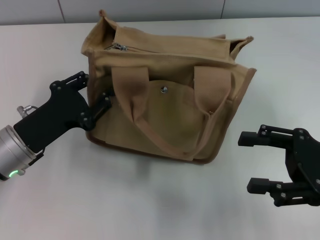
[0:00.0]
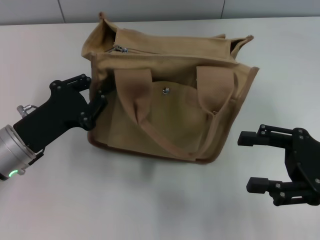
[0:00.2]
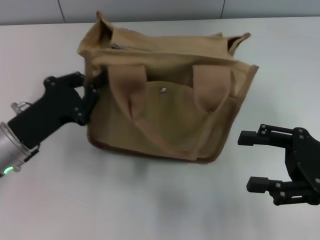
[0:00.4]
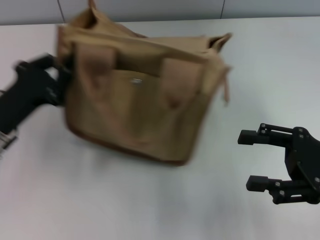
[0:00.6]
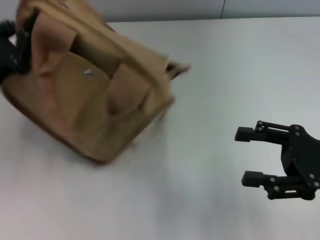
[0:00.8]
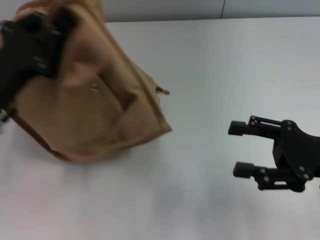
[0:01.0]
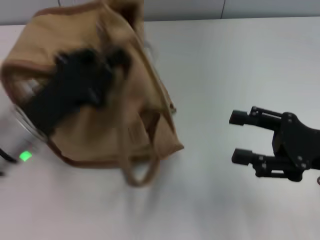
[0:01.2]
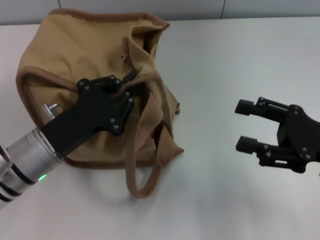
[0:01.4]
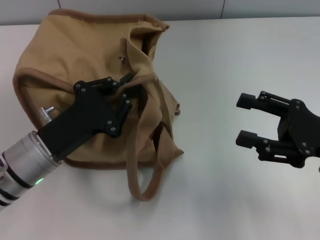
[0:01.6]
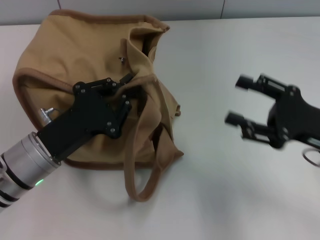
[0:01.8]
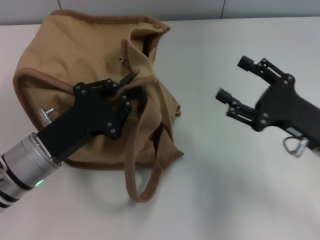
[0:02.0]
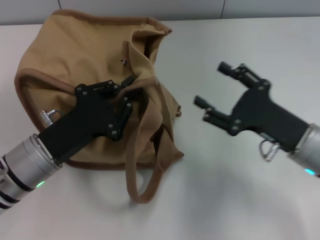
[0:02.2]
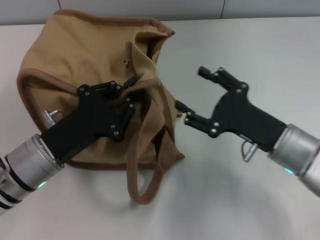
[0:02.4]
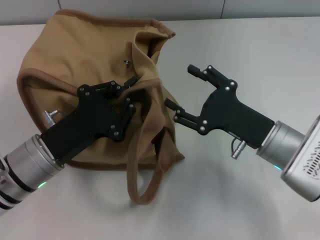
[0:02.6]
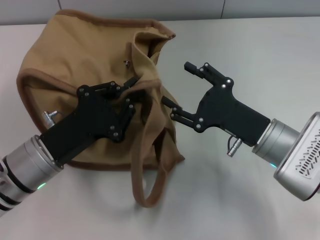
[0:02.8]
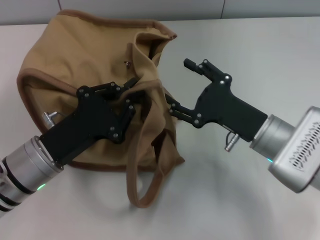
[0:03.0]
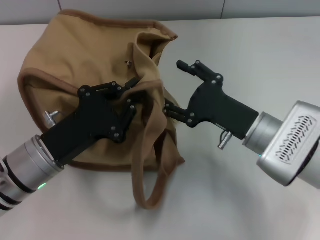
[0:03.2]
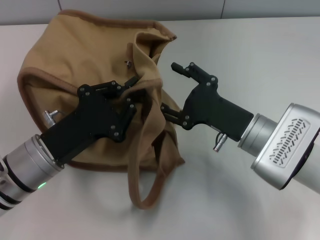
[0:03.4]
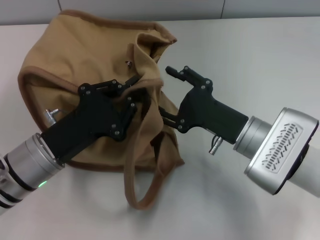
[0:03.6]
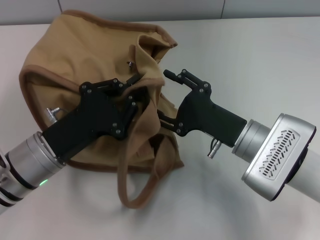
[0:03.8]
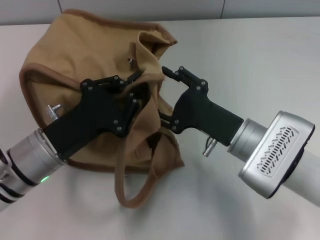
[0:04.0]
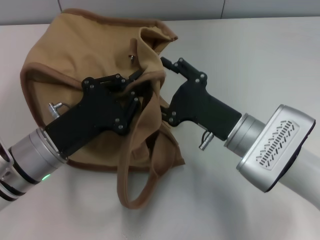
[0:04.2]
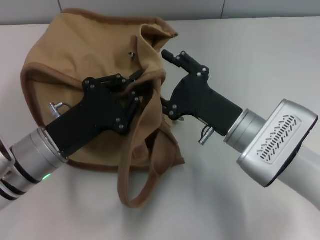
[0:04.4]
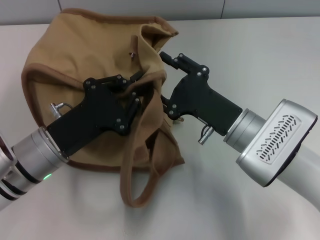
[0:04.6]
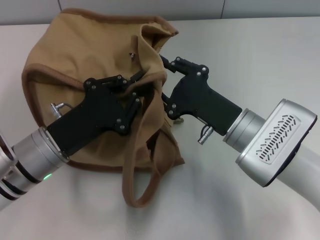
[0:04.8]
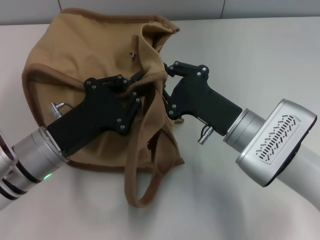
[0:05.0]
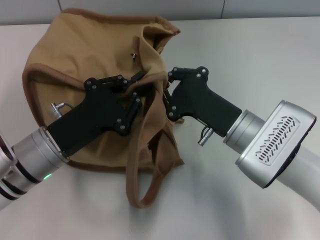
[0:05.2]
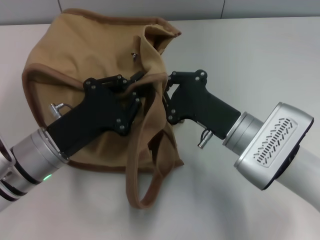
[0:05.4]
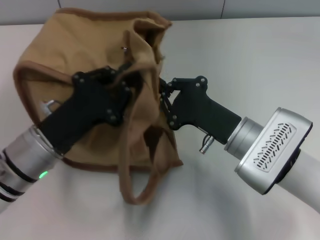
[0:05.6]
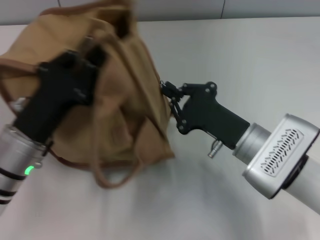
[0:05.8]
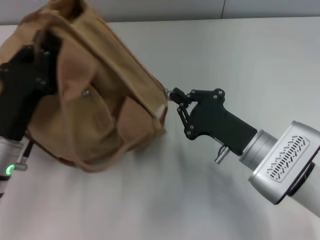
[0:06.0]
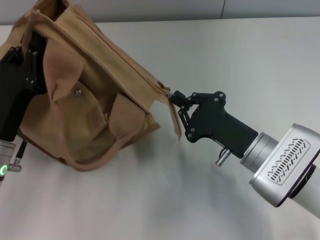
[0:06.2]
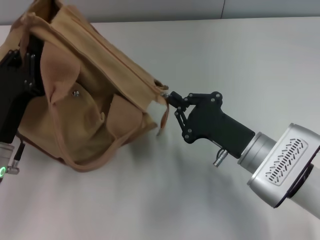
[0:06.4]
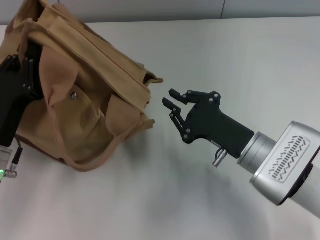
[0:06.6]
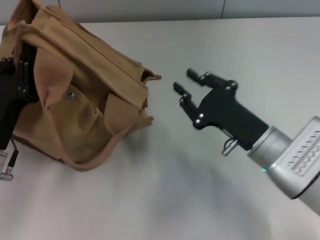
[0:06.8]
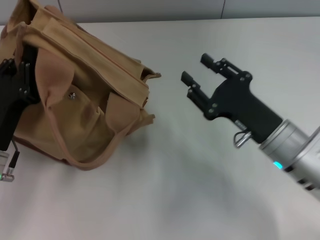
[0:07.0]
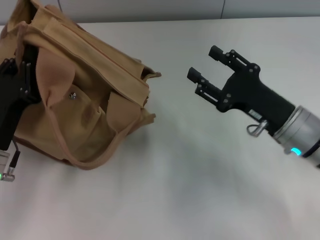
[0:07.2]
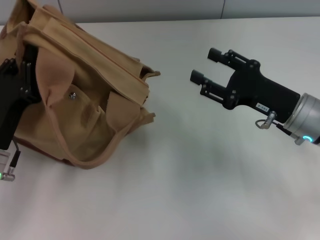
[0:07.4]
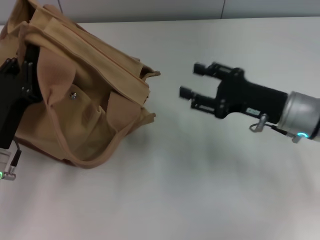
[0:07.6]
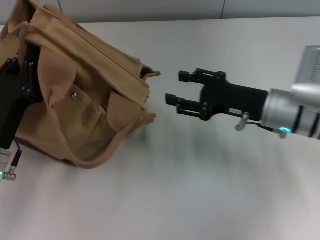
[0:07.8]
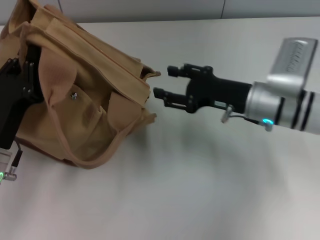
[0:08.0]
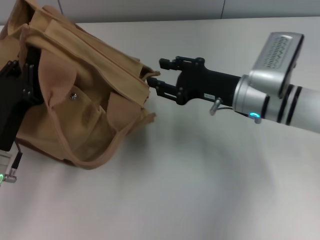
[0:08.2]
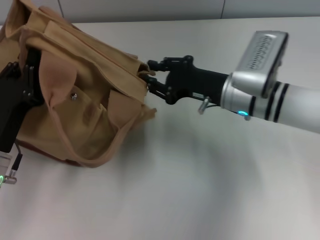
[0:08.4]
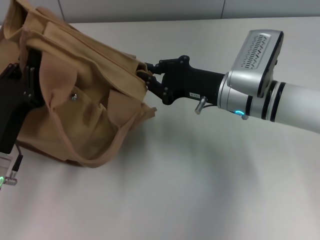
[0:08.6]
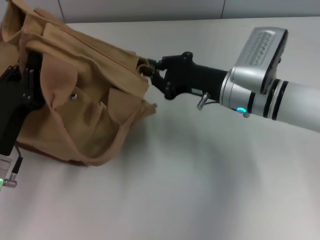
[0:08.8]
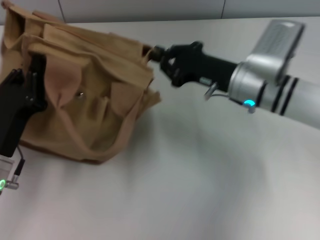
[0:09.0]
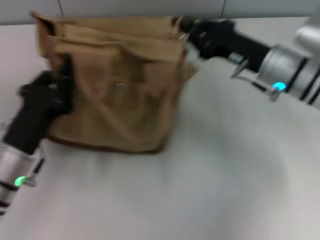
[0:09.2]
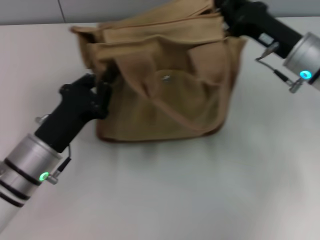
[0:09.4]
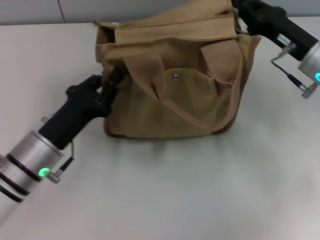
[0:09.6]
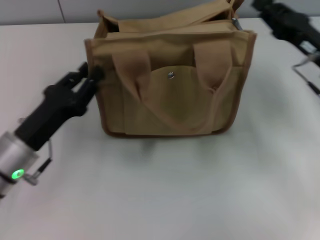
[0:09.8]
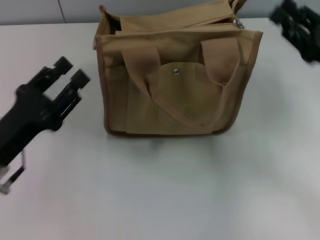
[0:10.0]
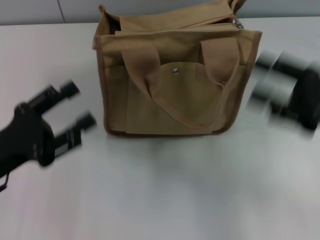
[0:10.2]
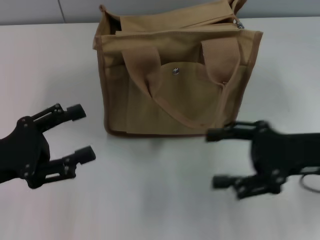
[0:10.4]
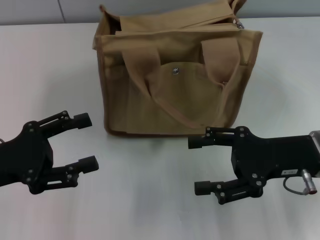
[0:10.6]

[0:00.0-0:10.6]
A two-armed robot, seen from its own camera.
Step, 0:00.0 to 0:06.4: Pull open the zipper with your right hand.
Step, 0:06.8 to 0:09.8: Grab the bag with your left hand.
0:00.0 to 0:01.6: The left gripper closes its fingers.
0:01.6 to 0:03.0: The right gripper travels to the left and downward by about 10 cm.
0:04.6 to 0:06.0: The right gripper closes.
0:06.0 to 0:07.6: The right gripper goes some 10 cm to the right and forward, and opens.
0:07.6 to 0:09.0: The right gripper goes roughly 5 cm to the left, and closes up.
0:09.0 to 0:10.6: The left gripper moves upward and to the left, approximately 10 cm, and opens up; the right gripper shifts approximately 15 cm backward and to the right, and opens.
